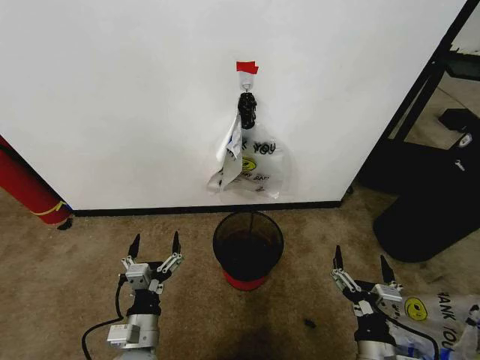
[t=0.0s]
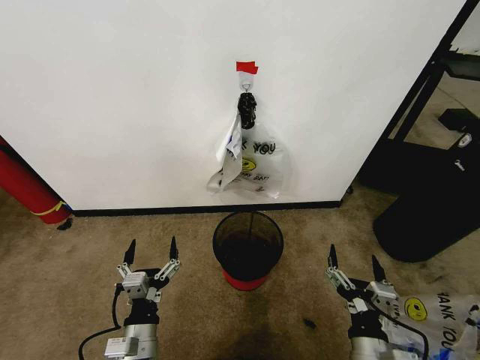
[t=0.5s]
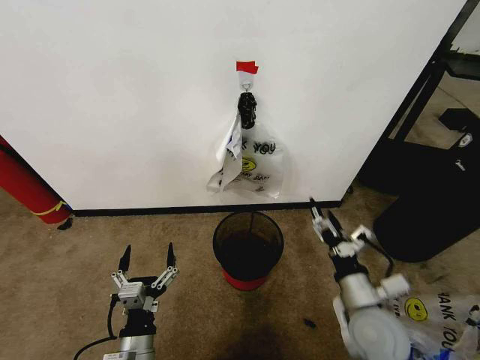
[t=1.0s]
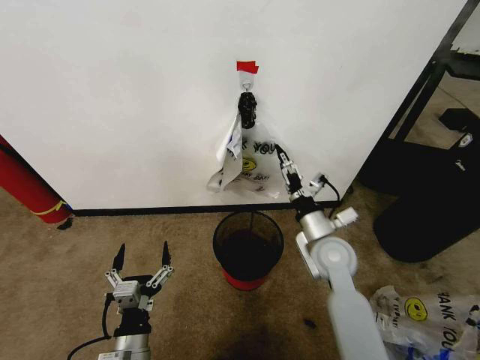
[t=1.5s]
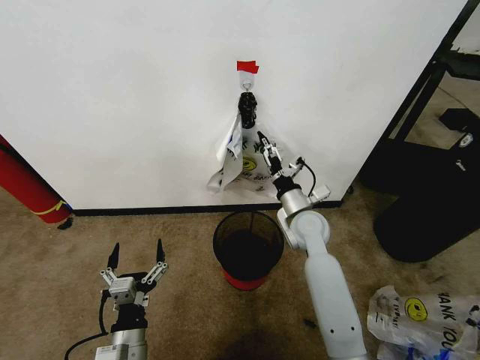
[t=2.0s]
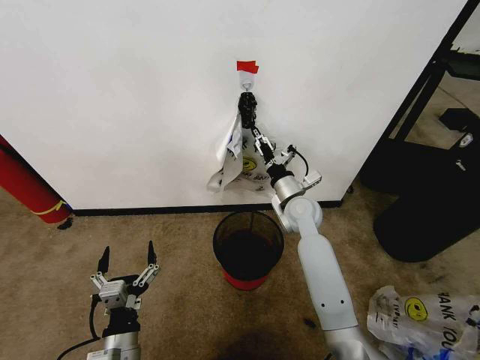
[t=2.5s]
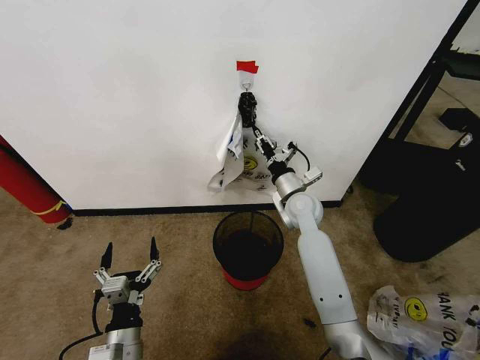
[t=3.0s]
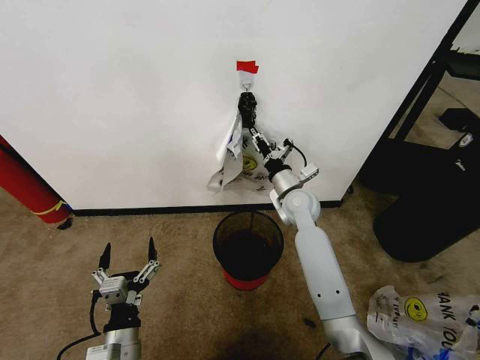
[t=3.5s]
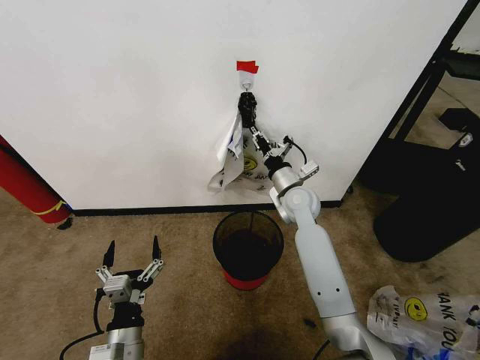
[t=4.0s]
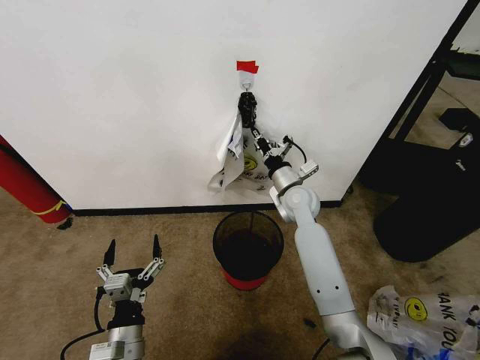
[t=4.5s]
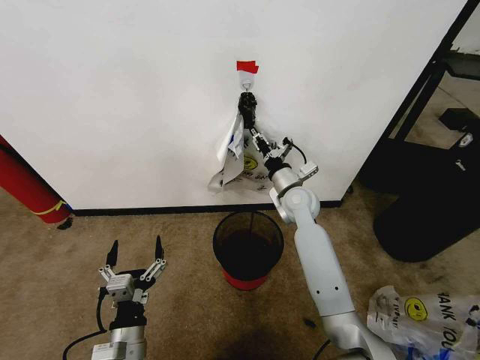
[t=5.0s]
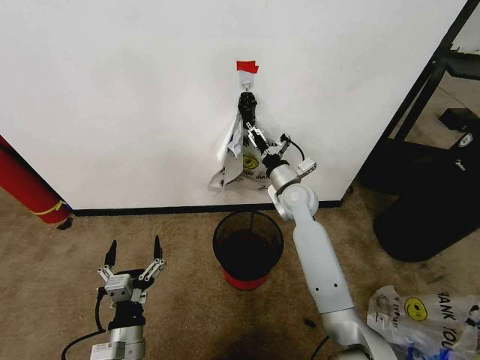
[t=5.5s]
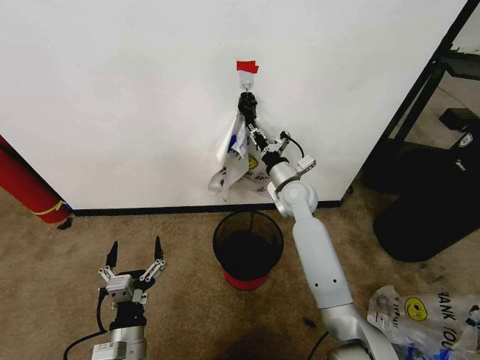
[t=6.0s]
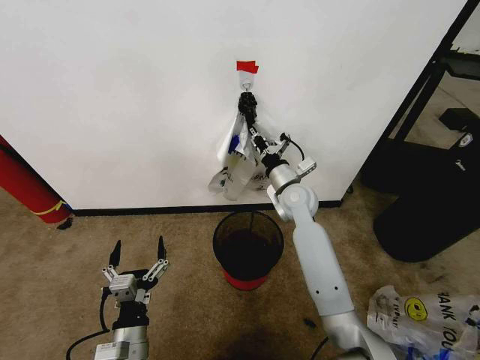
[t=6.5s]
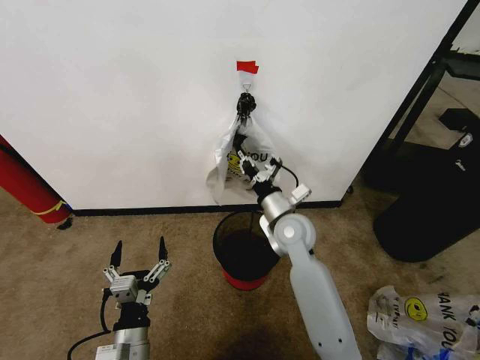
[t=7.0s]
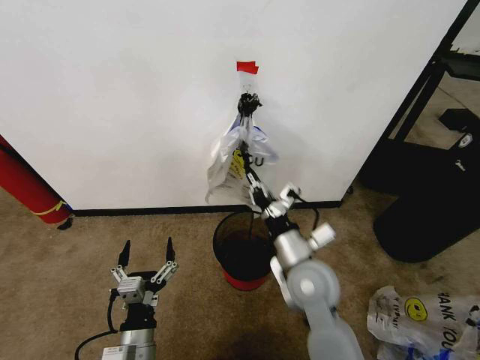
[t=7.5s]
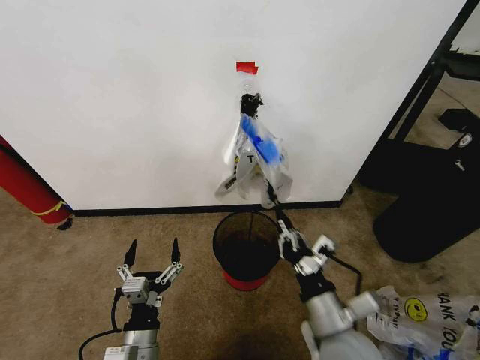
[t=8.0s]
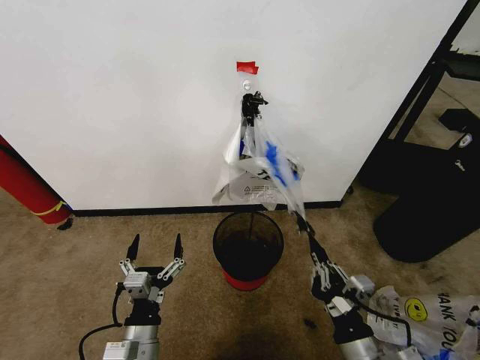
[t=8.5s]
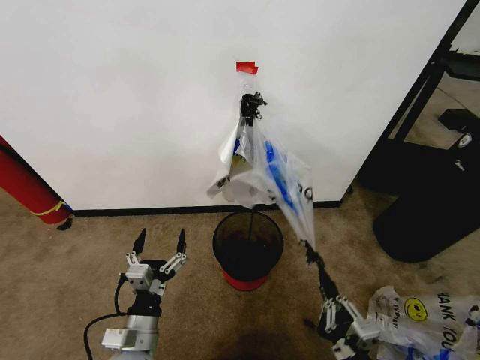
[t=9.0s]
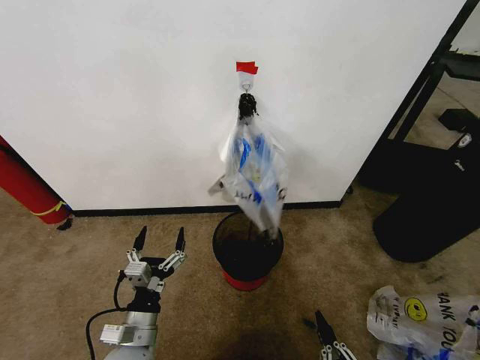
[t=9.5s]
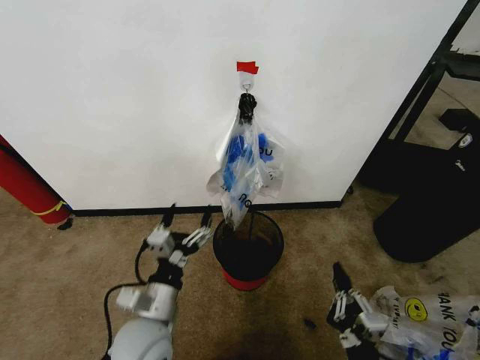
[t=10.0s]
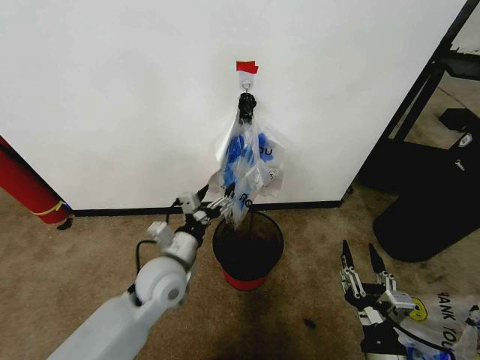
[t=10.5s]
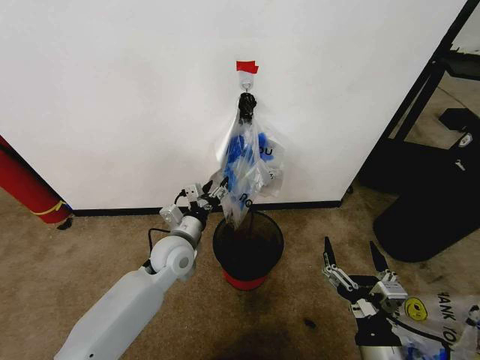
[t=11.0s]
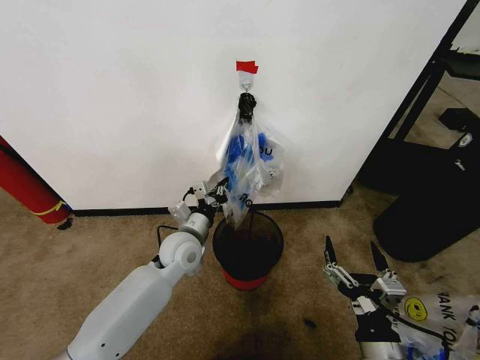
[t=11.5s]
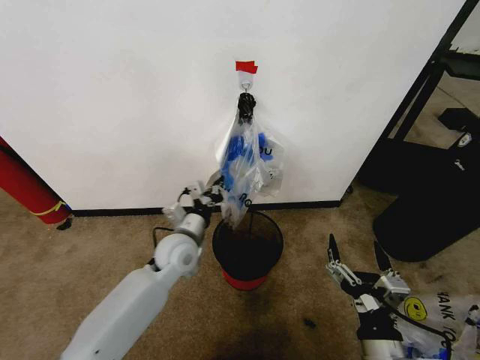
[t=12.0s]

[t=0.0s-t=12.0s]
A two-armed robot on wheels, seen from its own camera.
Task of the whole recording: Pick up the garbage bag from the wall and place it over the trash bin.
t=2.0s to t=4.0s: The right gripper travels forward by approximately 5 cm, and closes its fingers.
t=4.0s to t=6.0s: The right gripper opens, then closes again.
t=6.0s to t=8.0s: The right gripper is displaced backward by some 35 cm.
t=8.0s to t=10.0s: The right gripper travels backward and downward by roughly 15 cm. Meanwhile the left gripper goes some 10 cm upward and forward.
t=10.0s to t=12.0s: The left gripper is displaced forward by about 20 cm, and closes its fingers. The right gripper heads upward, covering about 5 cm, and opens.

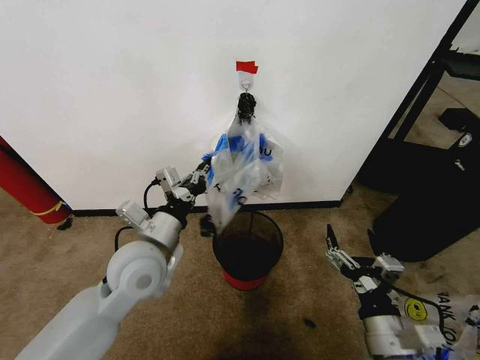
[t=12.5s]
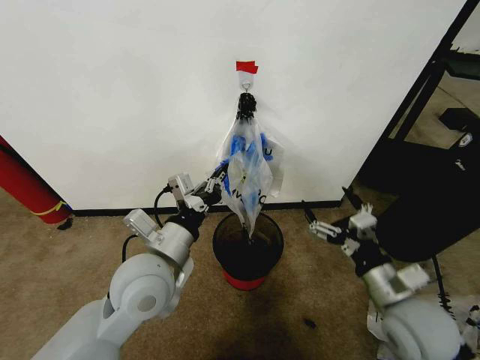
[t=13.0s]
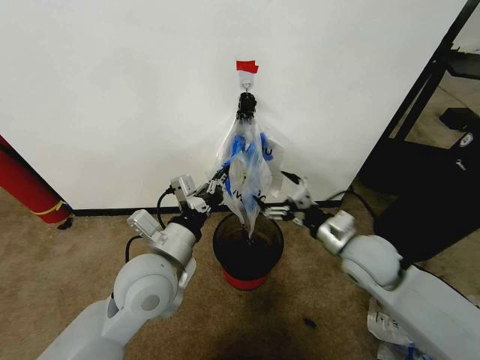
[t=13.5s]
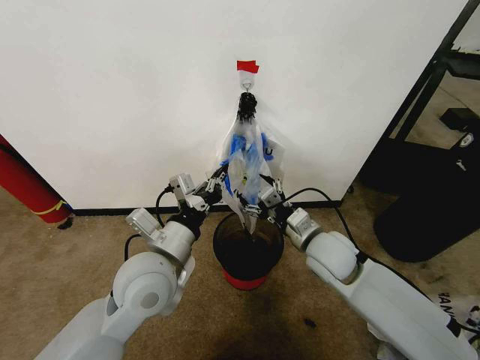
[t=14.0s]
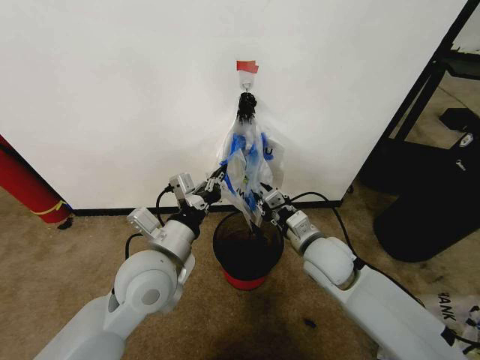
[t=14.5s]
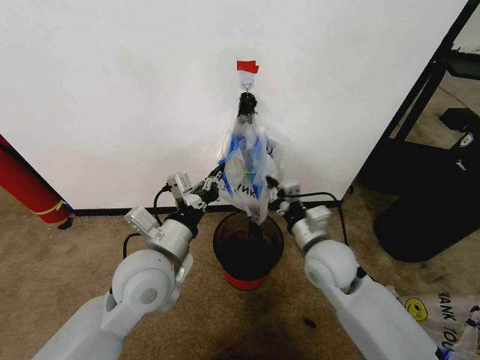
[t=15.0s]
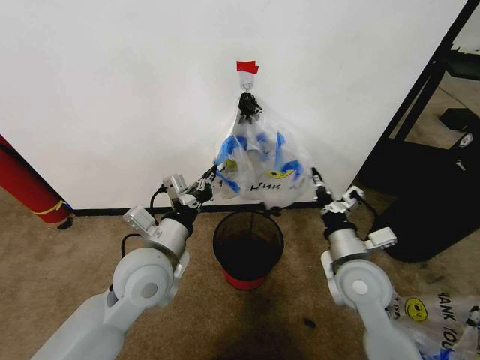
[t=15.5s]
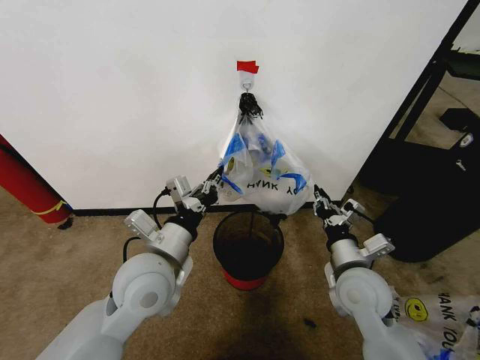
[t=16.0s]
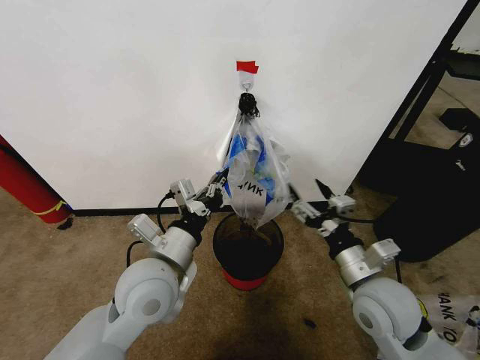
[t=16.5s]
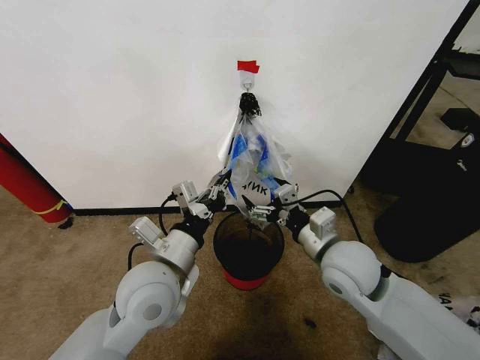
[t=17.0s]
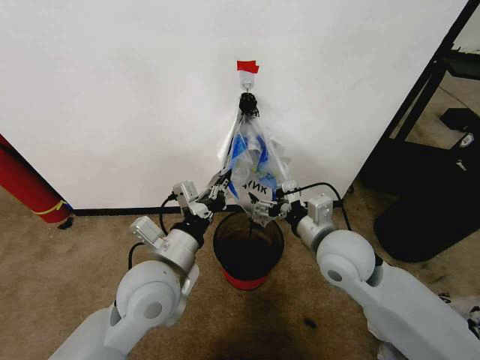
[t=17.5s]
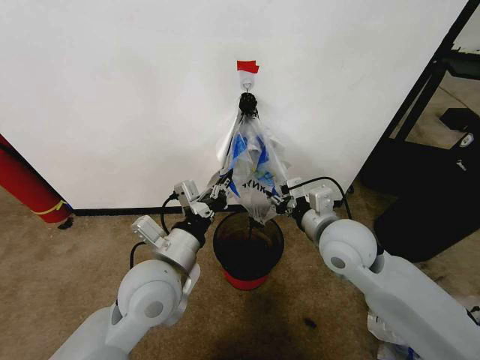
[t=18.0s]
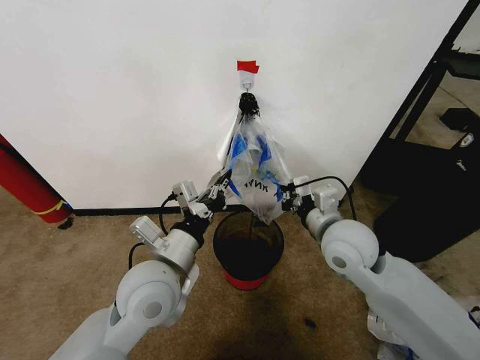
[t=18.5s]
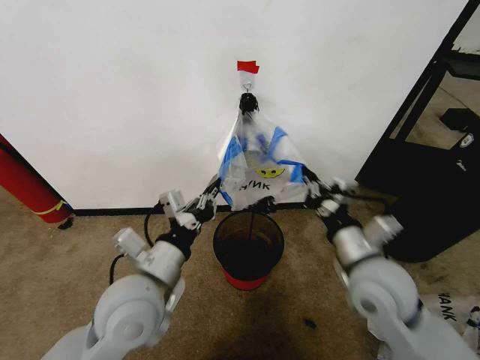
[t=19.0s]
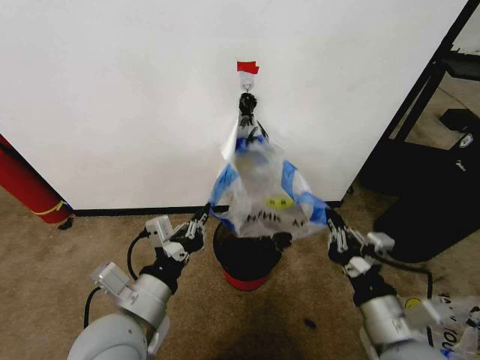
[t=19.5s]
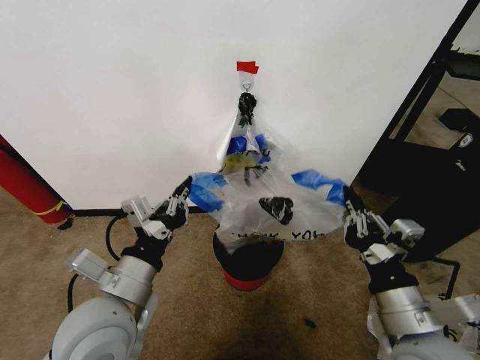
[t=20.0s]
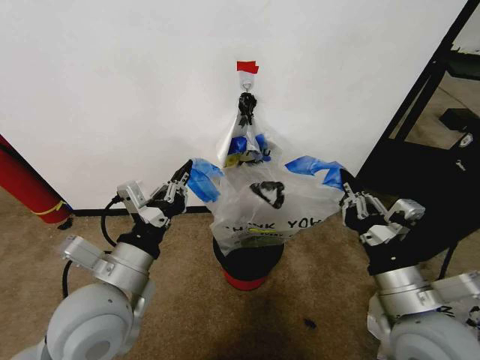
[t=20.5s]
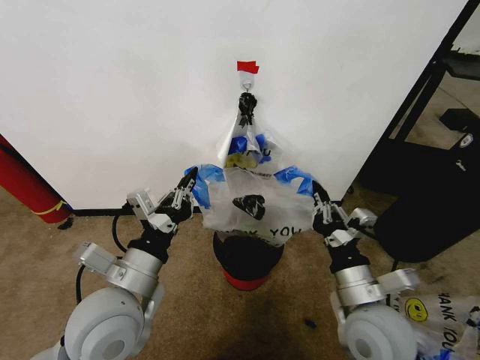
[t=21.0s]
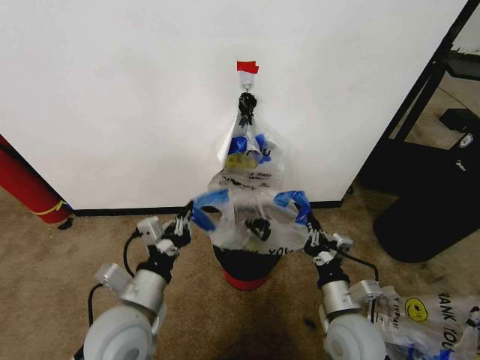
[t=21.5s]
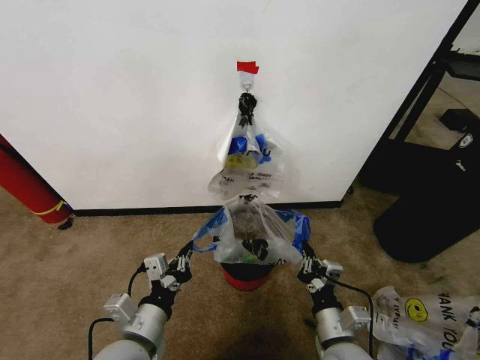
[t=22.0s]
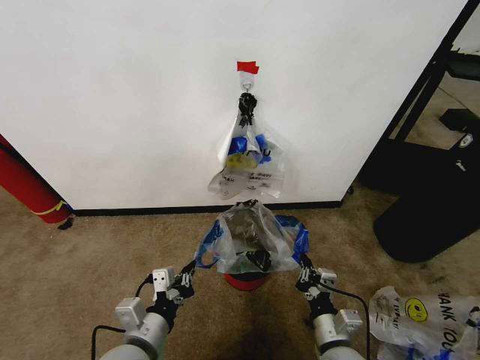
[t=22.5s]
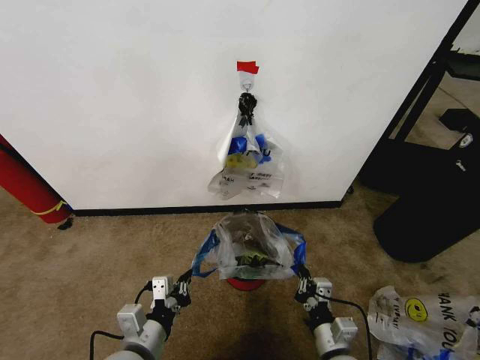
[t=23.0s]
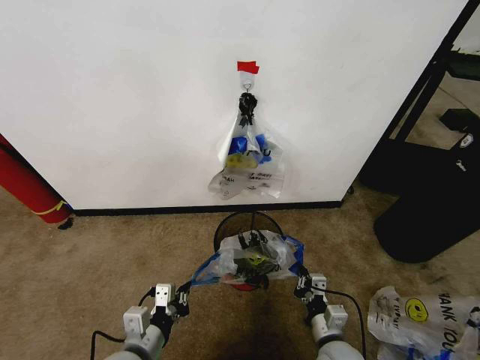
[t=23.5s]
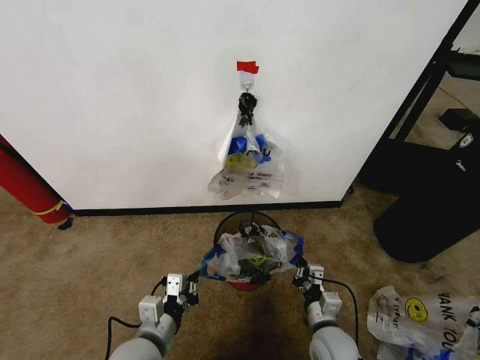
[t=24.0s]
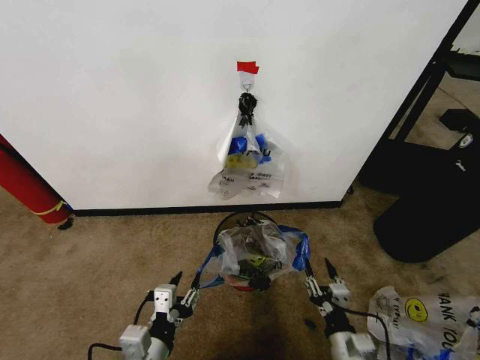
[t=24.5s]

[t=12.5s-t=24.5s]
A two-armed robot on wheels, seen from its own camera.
Task of the whole recording: Pick up the garbage bag from the wall and place it over the trash bin.
t=12.5s to t=14.5s: The right gripper goes roughly 20 cm forward, and closes.
t=14.5s to t=16.5s: The right gripper goes about 10 cm backward and to the right, and opens.
t=16.5s to t=18.5s: The right gripper heads forward, covering some 10 cm, and closes its fingers.
t=18.5s to t=20.5s: The left gripper moves backward and to the left, some 5 cm. The right gripper travels backward by approximately 15 cm.
t=20.5s to t=22.5s: Both grippers move downward, some 15 cm.
t=22.5s to t=24.5s: The left gripper opens up, while the right gripper moves about 5 cm, and opens.

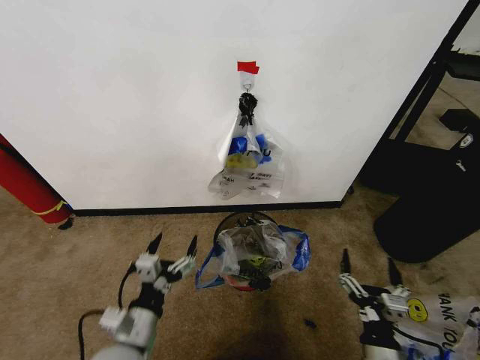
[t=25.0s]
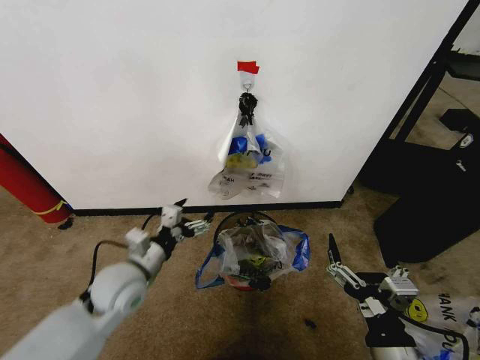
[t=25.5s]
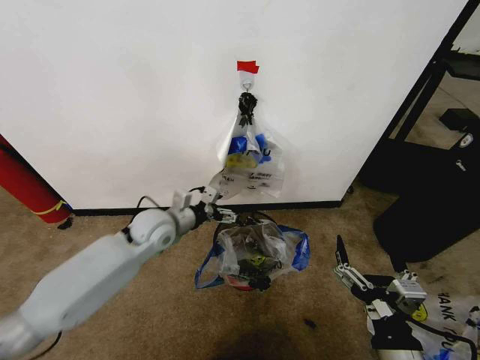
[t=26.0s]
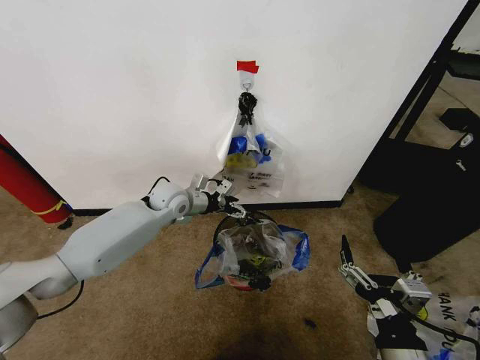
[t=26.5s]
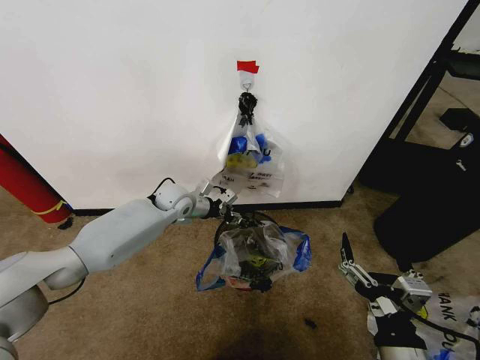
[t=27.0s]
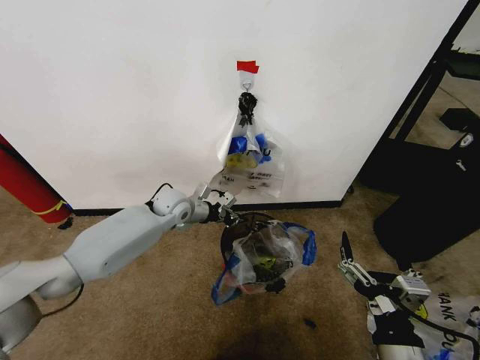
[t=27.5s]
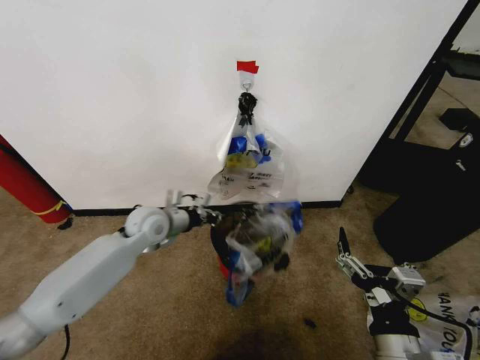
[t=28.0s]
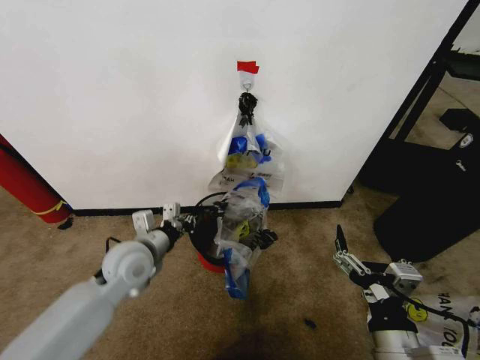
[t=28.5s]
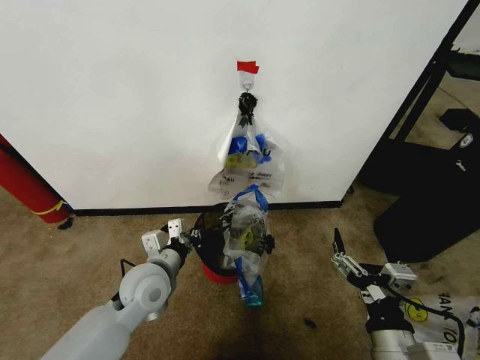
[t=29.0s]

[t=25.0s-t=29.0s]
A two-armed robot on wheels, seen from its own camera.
Task of the whole recording: Pick up the garbage bag from the wall and place it over the trash bin.
t=25.0s to t=27.0s: The right gripper heads upward, covering approximately 10 cm. The left gripper heads forward, covering roughly 35 cm, and closes up.
t=27.0s to t=29.0s: The left gripper moves backward, about 25 cm.
